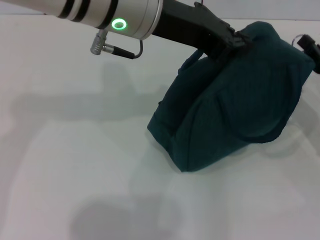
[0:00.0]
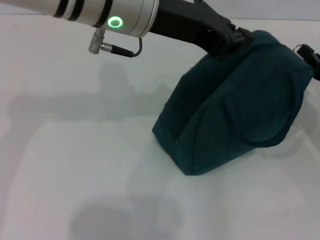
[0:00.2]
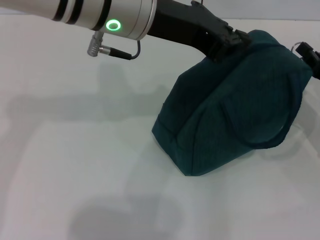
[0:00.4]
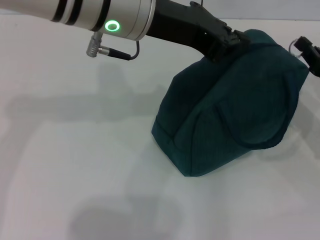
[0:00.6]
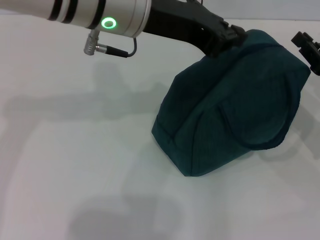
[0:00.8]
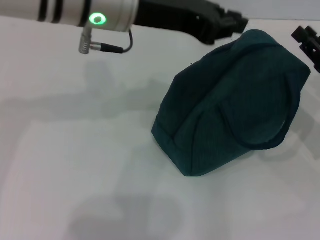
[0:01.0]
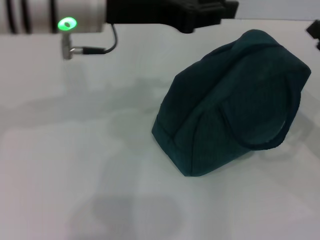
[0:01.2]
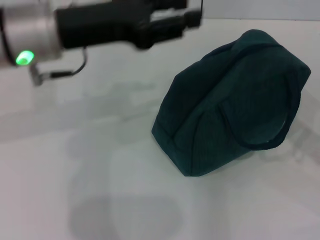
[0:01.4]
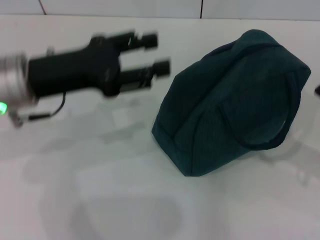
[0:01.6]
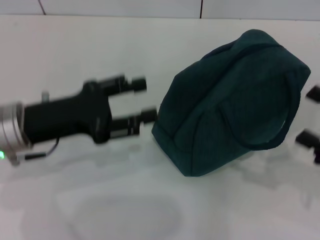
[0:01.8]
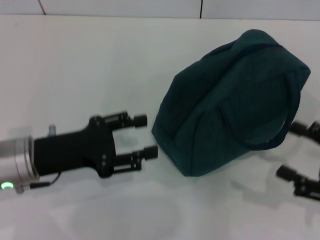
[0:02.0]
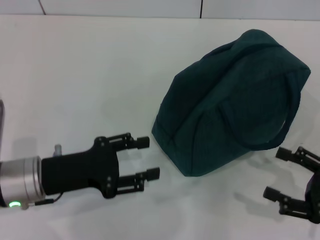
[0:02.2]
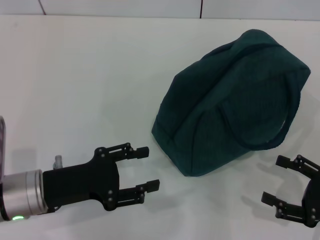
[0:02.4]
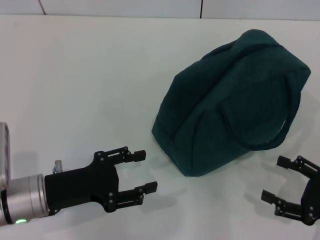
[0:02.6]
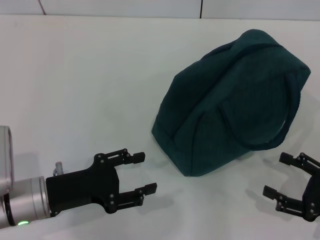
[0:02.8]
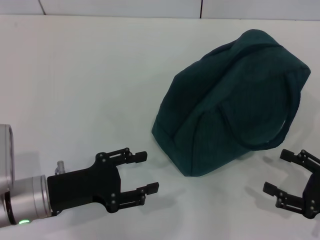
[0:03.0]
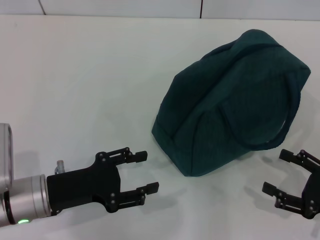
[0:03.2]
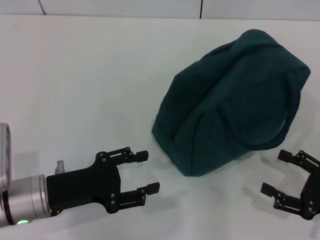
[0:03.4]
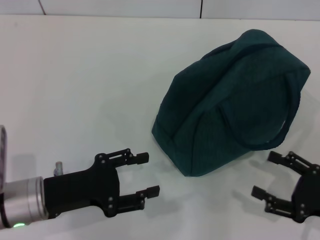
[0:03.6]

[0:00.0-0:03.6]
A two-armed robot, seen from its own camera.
0:00.0 to 0:01.8: The left gripper shifts some 20 cm to the left, downward and backward, and opens; the right gripper shifts roughly 10 cm backward, and opens.
0:01.8 to 0:03.6: The left gripper moves downward and backward, roughly 10 cm. Meanwhile the right gripper travels downward by roughly 5 cm.
